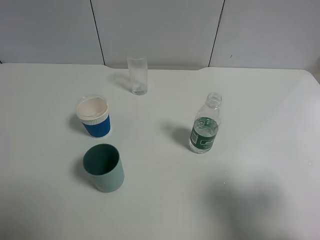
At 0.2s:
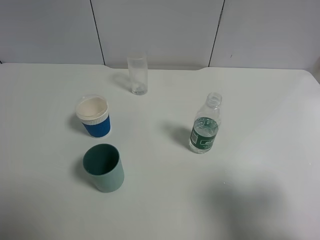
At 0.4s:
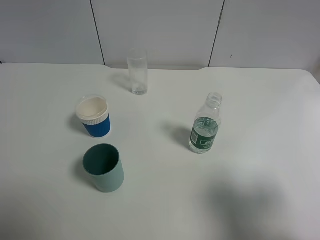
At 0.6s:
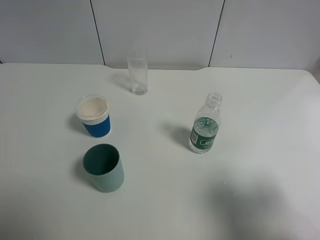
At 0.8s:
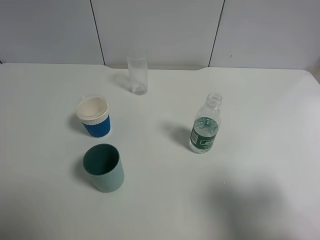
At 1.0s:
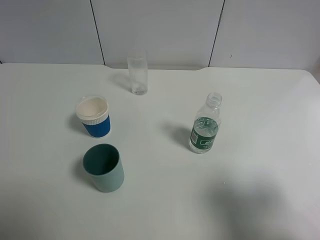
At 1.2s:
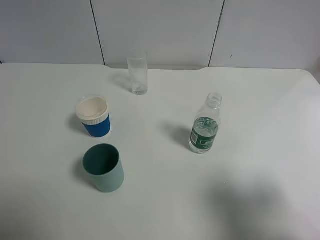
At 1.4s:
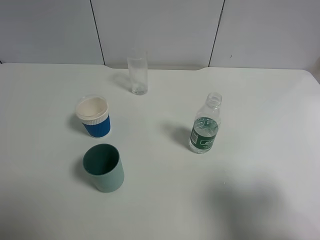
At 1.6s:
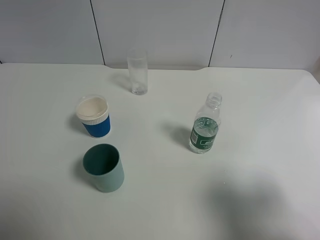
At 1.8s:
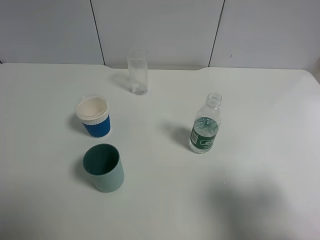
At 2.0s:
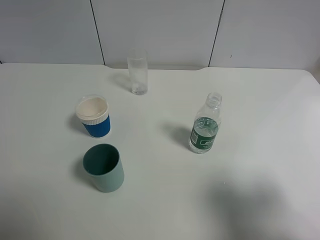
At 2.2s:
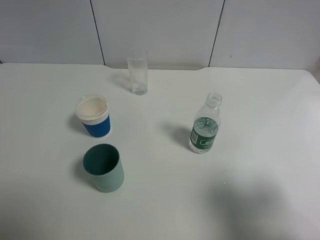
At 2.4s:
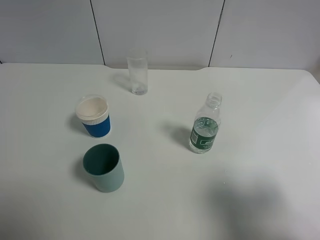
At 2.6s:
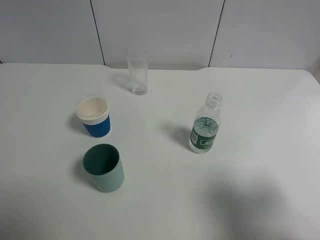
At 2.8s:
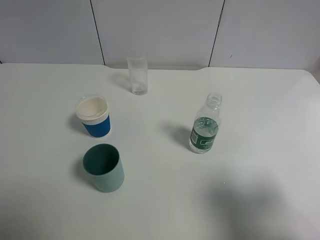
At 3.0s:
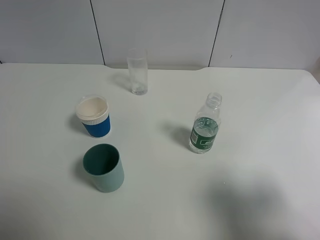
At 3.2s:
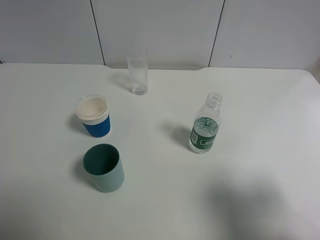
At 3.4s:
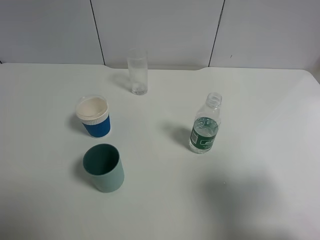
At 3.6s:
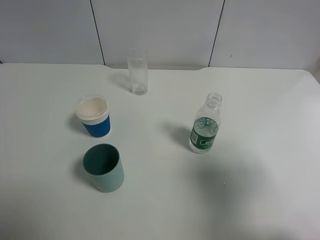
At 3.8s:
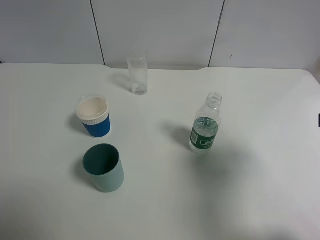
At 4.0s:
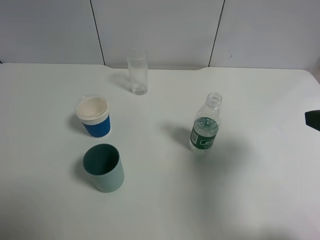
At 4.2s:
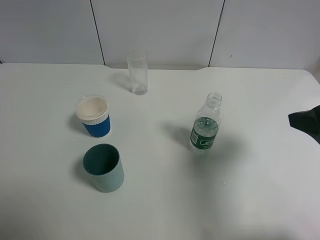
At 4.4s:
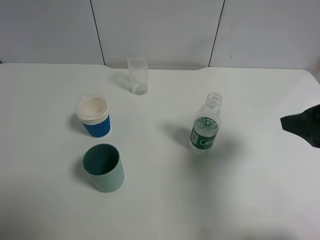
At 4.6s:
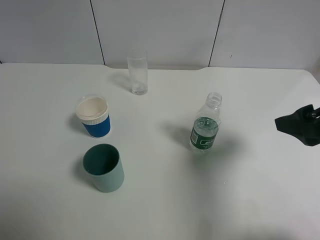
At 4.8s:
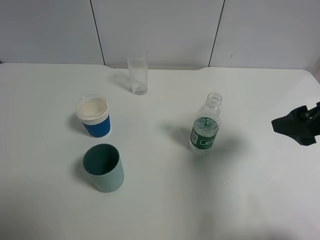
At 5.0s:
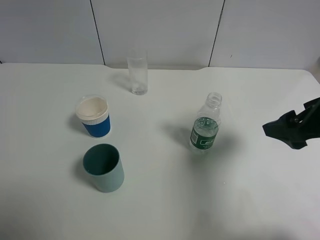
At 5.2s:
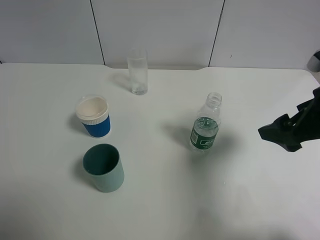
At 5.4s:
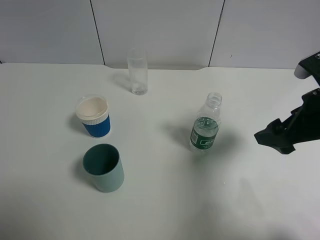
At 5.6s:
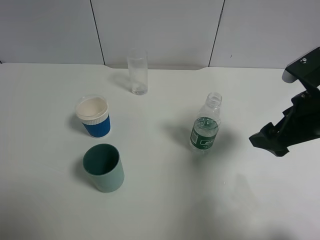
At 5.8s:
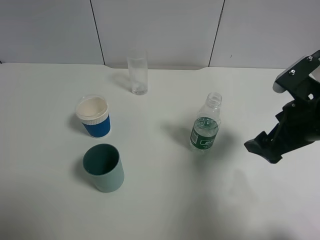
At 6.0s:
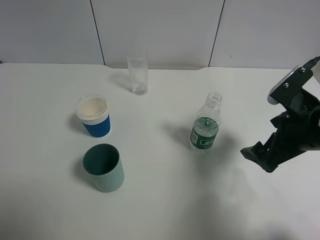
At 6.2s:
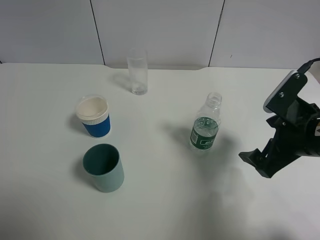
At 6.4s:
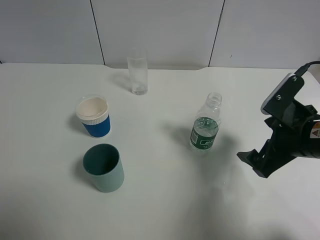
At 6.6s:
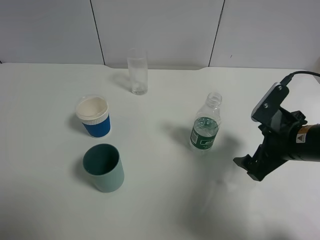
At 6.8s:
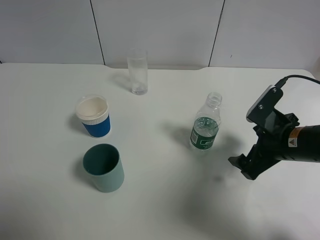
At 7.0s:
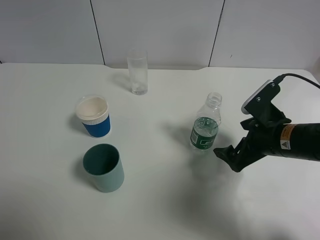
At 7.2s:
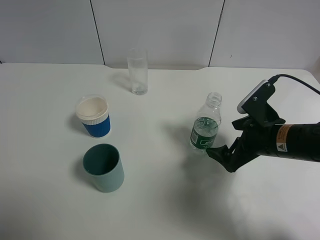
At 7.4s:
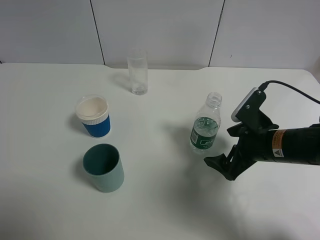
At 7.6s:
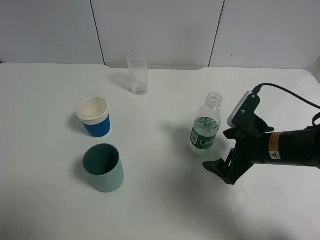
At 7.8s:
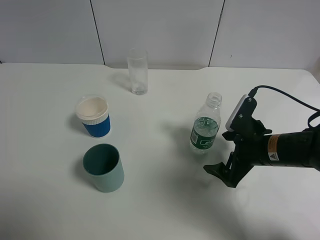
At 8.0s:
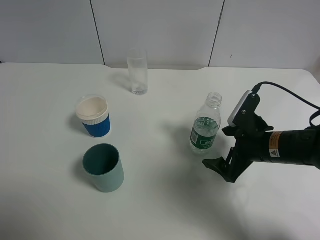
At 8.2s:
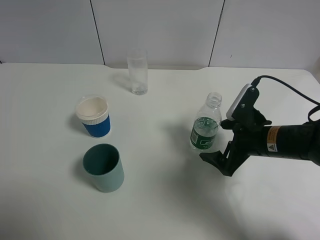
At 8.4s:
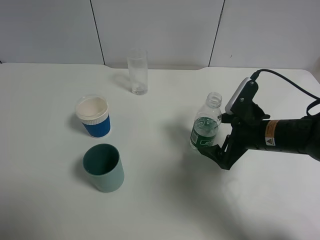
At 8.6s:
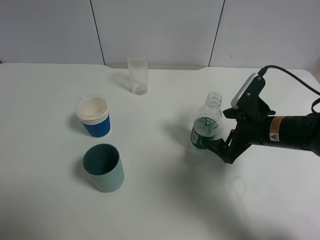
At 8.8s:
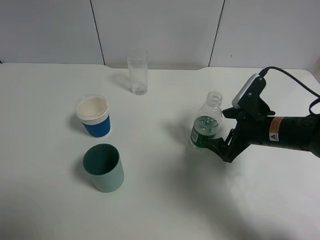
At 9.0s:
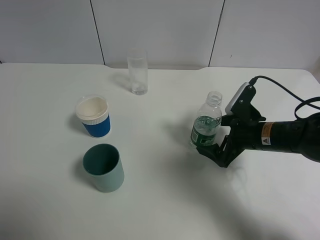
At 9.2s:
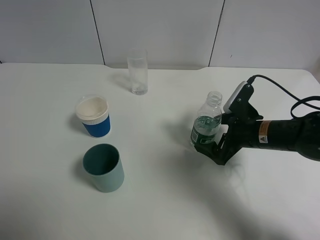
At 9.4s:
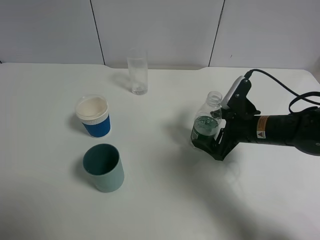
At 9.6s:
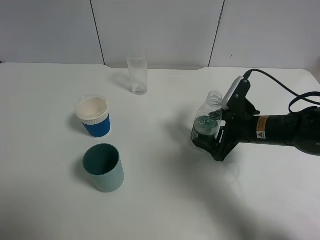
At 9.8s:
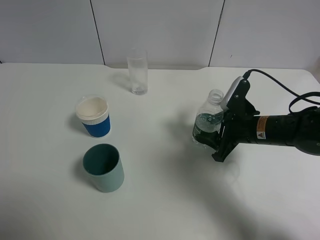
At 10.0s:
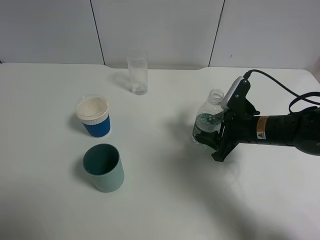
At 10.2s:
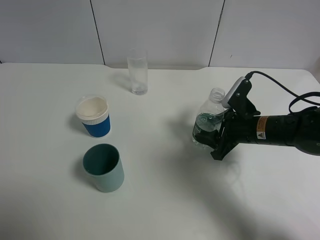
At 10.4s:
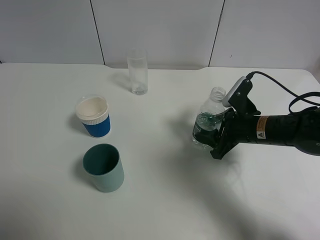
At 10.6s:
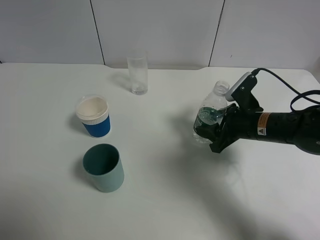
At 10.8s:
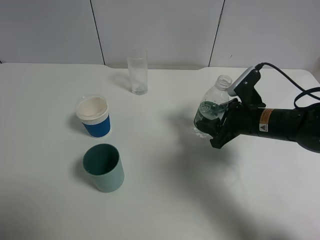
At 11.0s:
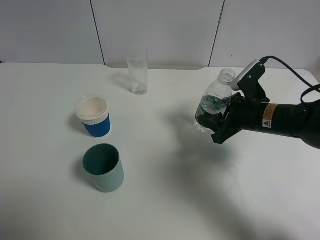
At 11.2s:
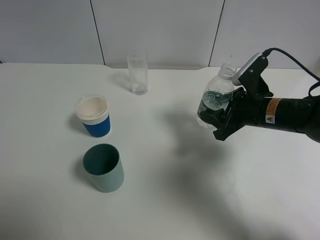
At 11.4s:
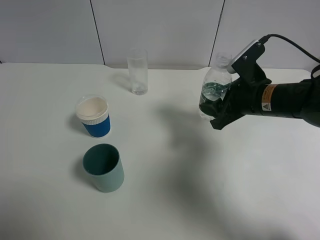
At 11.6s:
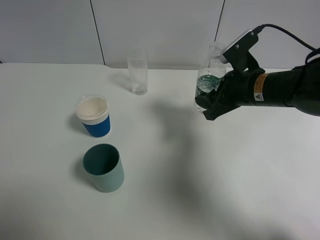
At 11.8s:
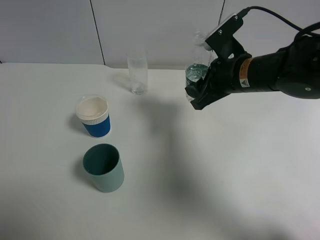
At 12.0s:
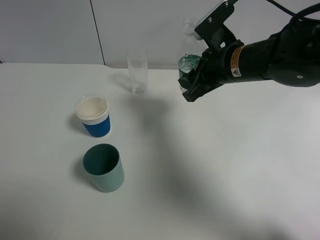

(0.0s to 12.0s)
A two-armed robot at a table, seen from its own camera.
Task of the whole recording: use a gripper to hold the bottle of the drink and pour it into a random cup.
Step, 0.0s - 10.0s: Grasp the mineral water bottle with the right gripper.
0.0s - 3.0s: Both grippers stay about where they are.
3.0s - 4.4s: The right gripper travels forward by some 15 cm.
4.4s - 6.0s: The right gripper shifts approximately 10 cm downward.
6.0s - 7.6s: The right gripper moves downward, approximately 10 cm.
7.6s - 9.0s: The grippers move only a little.
9.0s - 10.4s: The right gripper closes up.
10.4s - 12.0s: The right gripper heads upward and to the left, covering approximately 15 cm.

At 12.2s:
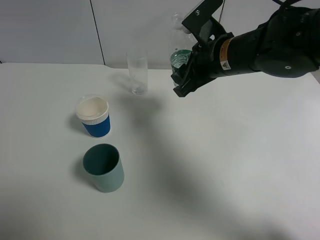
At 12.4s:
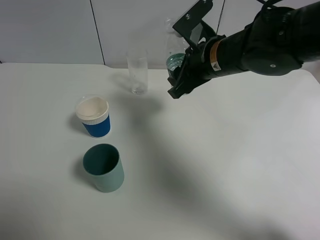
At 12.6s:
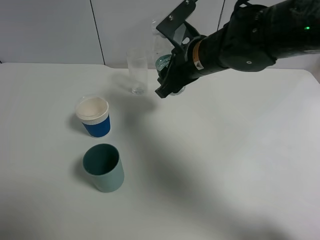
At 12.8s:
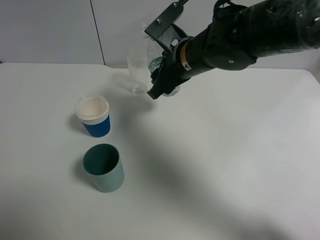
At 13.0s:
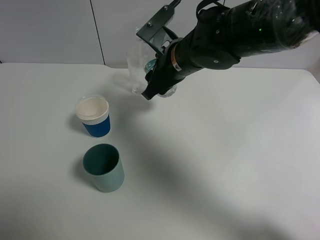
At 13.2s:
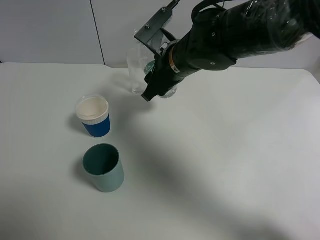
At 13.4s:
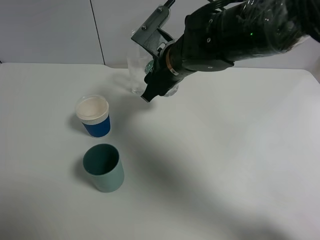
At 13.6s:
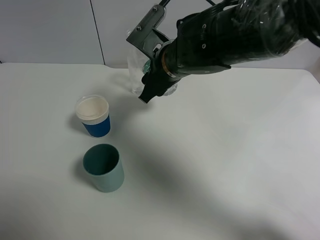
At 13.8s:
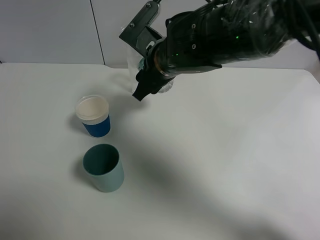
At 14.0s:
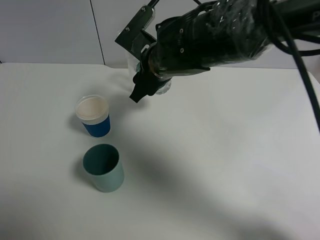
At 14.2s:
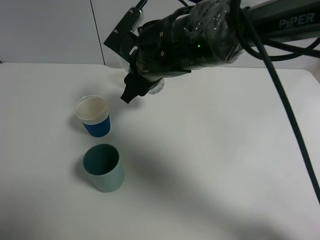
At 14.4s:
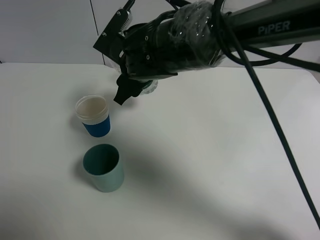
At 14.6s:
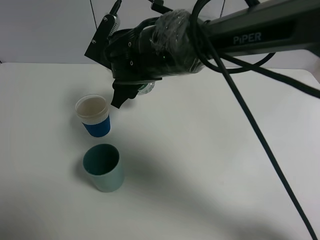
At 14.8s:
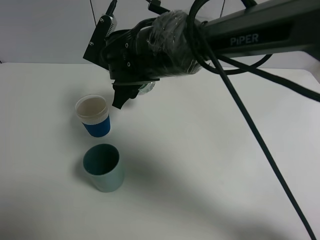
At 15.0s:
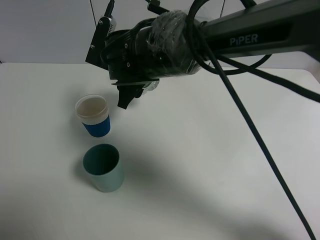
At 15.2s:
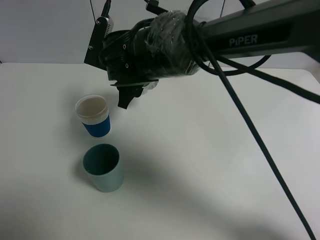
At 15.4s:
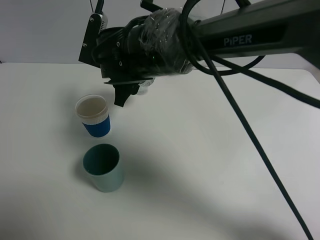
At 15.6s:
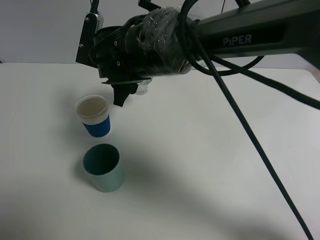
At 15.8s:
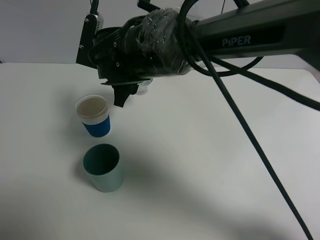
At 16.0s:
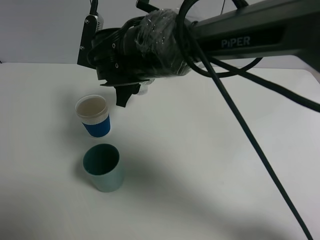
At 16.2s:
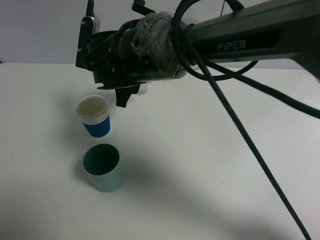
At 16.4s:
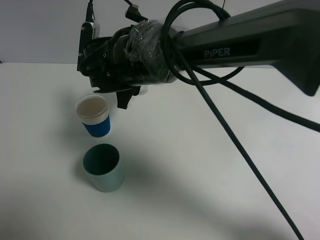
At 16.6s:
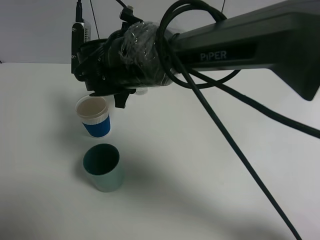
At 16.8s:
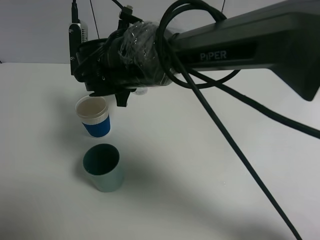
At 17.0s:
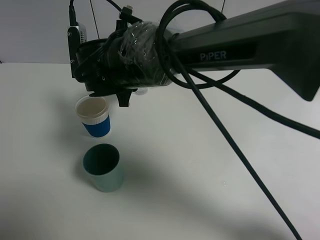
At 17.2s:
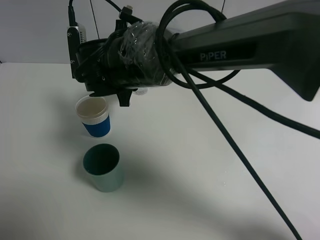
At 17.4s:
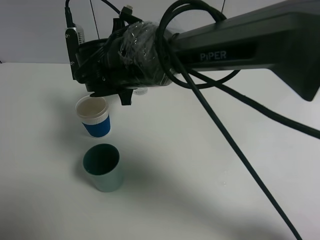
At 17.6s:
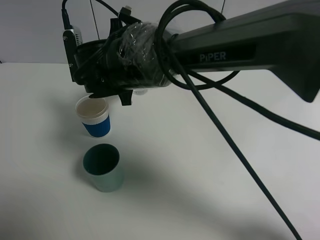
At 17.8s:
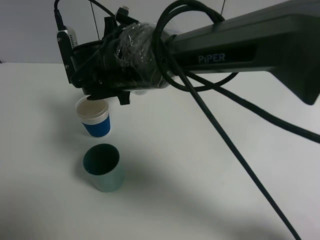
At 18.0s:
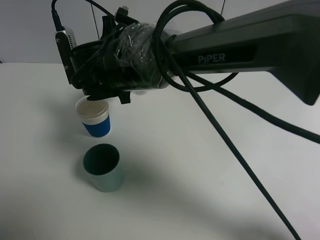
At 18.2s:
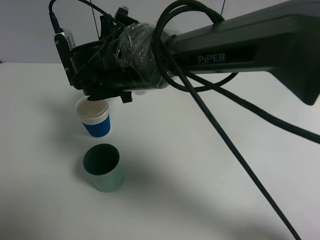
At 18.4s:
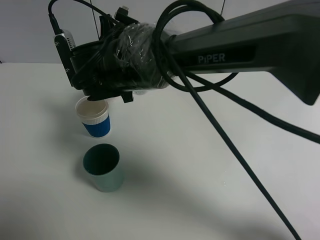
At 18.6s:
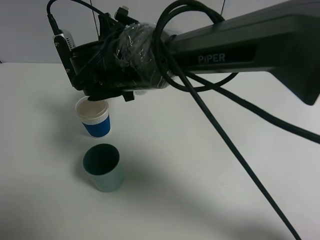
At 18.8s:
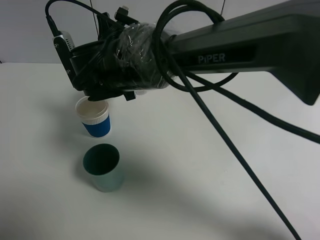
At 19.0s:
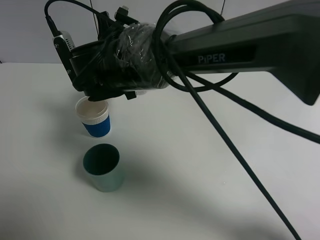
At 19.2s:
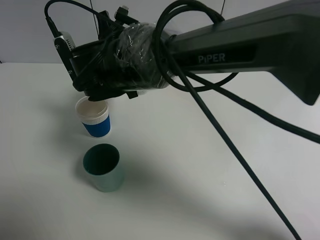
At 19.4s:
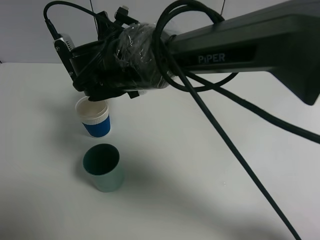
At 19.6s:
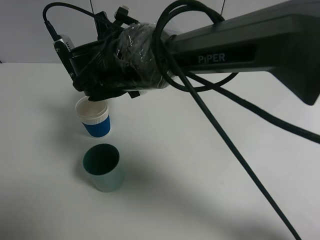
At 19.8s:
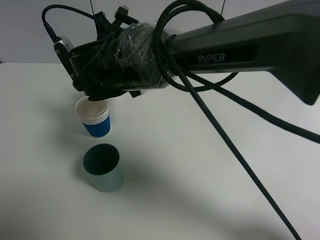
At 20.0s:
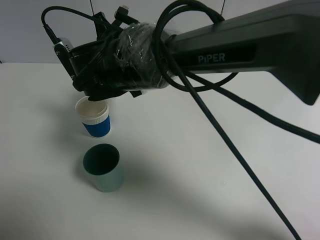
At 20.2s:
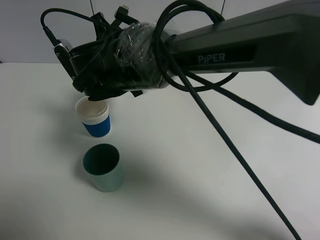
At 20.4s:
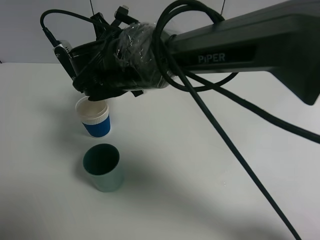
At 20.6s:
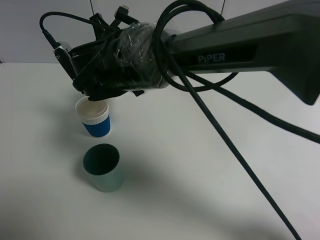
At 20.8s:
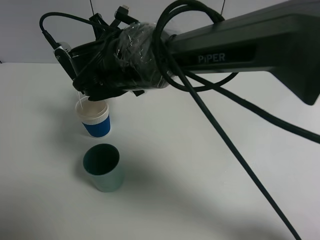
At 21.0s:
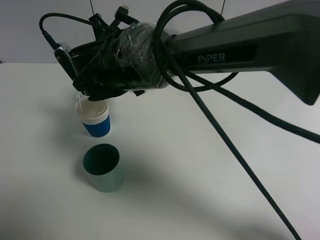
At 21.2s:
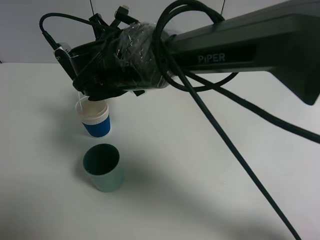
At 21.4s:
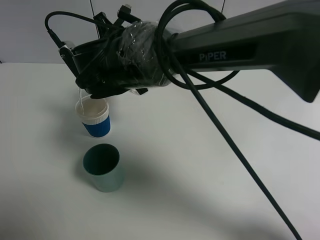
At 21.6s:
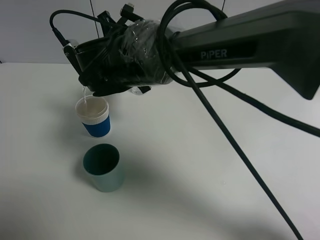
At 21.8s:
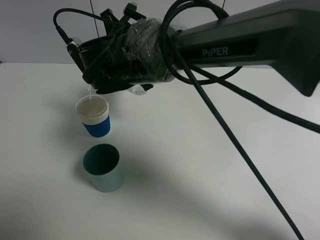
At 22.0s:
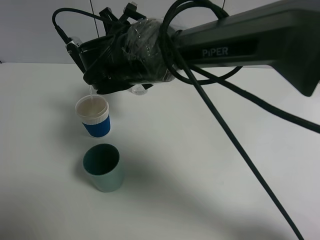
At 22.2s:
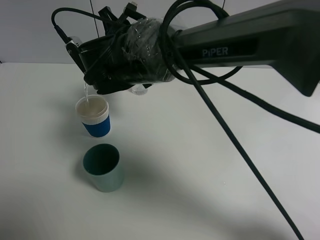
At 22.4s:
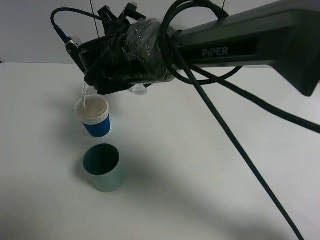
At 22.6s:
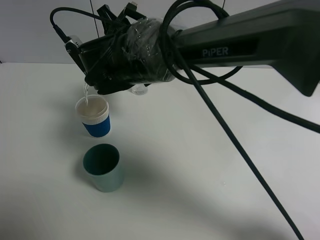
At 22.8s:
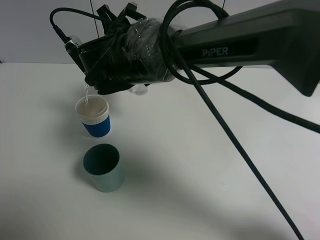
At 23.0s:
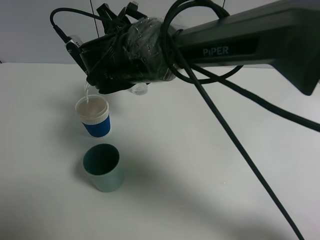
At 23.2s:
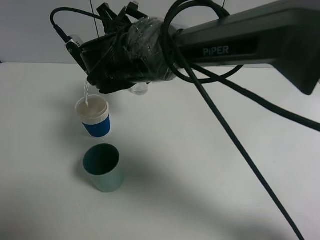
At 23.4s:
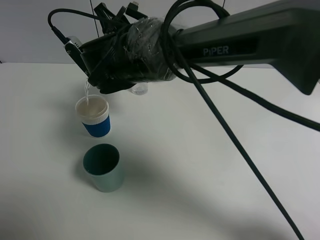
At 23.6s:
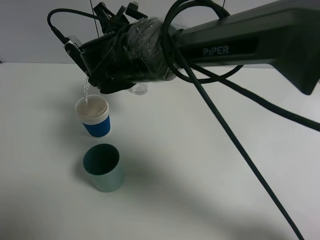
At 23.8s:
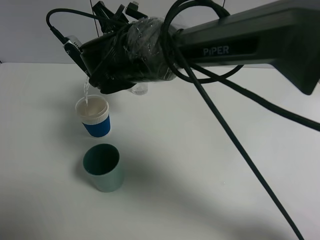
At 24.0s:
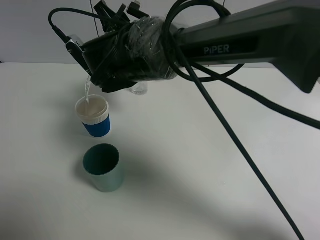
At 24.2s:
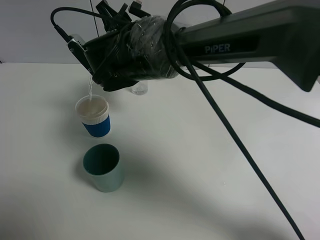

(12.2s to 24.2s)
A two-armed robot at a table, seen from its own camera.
Task of the whole recording: use a gripper to hold the bottle of the drink and pour it into a random cup.
12.2s - 13.8s: The right gripper goes some 10 cm to the left.
13.8s - 15.2s: The right gripper shifts approximately 5 cm to the left.
16.6s - 18.2s: The grippers make only small movements.
18.2s - 21.2s: The grippers stay close to where they were, moving slightly.
21.2s - 24.2s: There are only small adjustments of the grippers.
